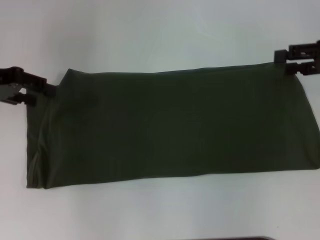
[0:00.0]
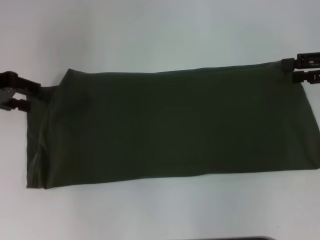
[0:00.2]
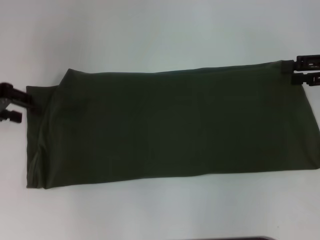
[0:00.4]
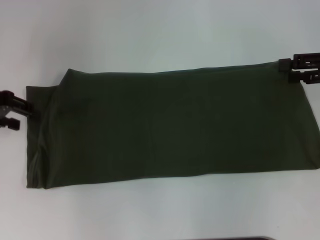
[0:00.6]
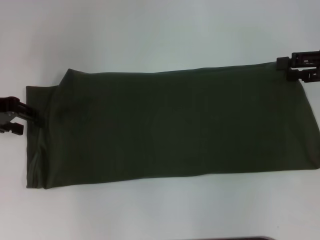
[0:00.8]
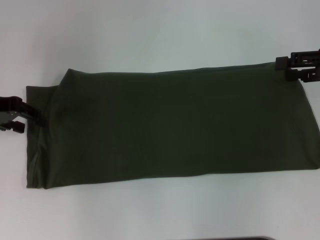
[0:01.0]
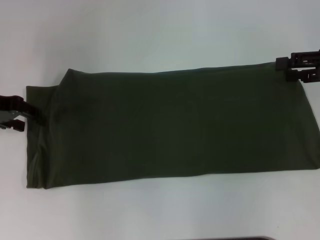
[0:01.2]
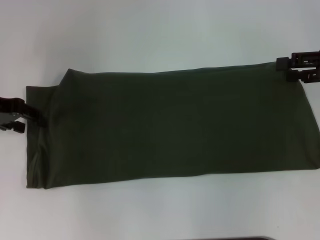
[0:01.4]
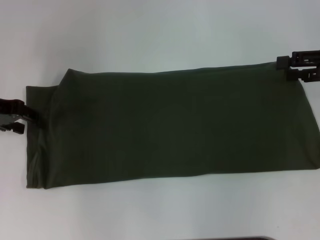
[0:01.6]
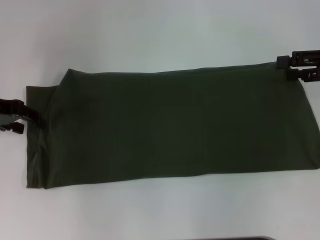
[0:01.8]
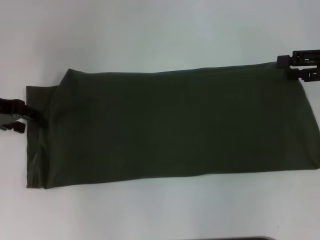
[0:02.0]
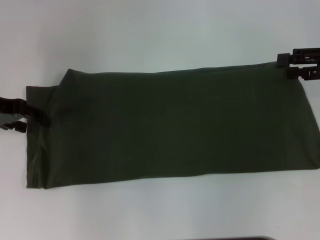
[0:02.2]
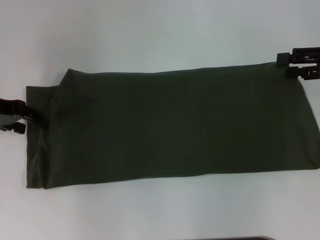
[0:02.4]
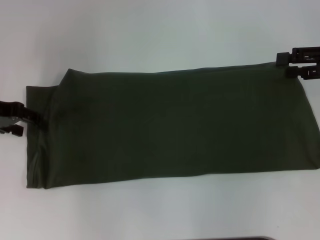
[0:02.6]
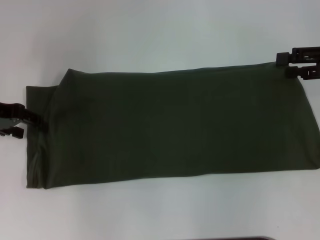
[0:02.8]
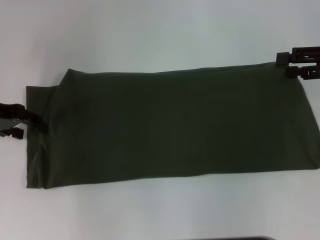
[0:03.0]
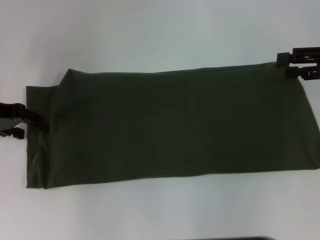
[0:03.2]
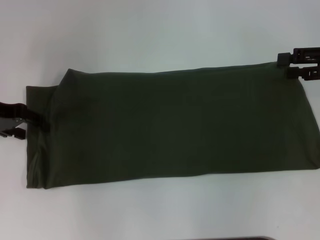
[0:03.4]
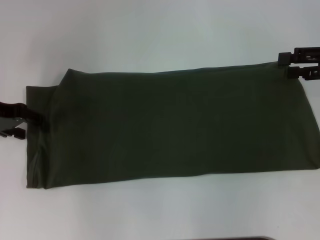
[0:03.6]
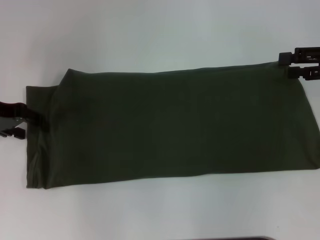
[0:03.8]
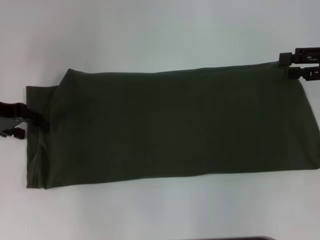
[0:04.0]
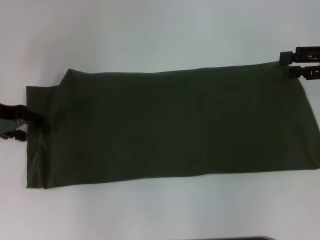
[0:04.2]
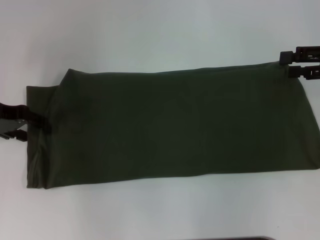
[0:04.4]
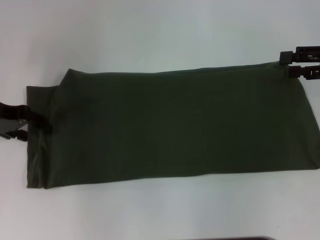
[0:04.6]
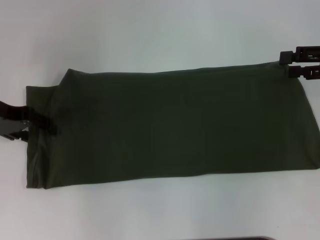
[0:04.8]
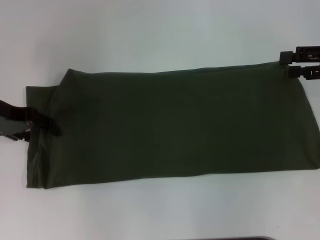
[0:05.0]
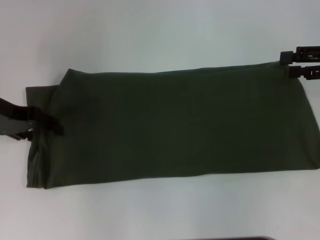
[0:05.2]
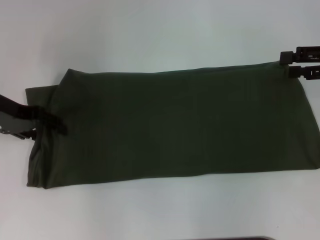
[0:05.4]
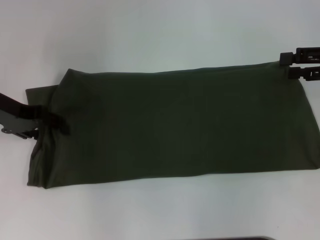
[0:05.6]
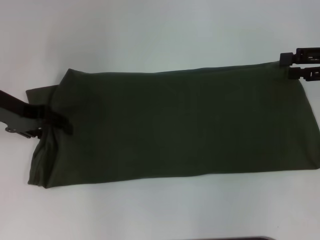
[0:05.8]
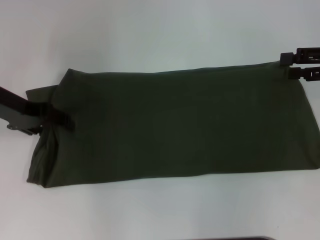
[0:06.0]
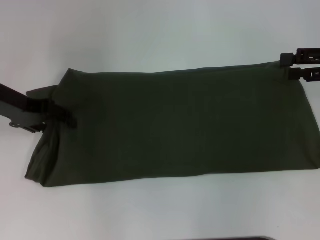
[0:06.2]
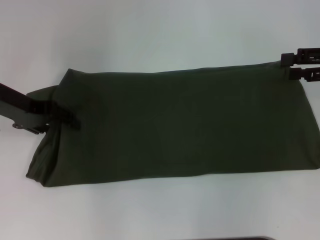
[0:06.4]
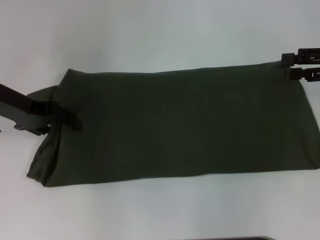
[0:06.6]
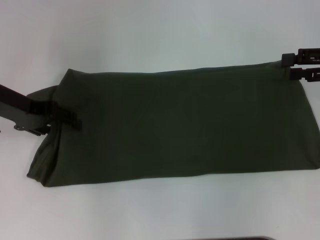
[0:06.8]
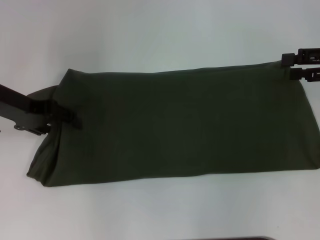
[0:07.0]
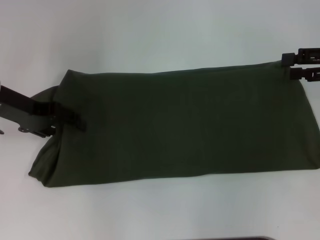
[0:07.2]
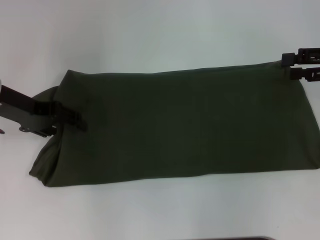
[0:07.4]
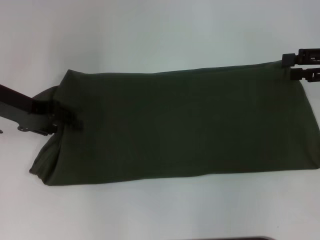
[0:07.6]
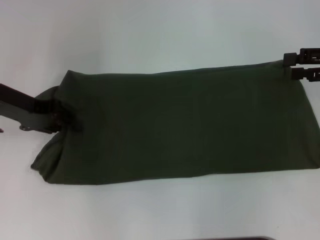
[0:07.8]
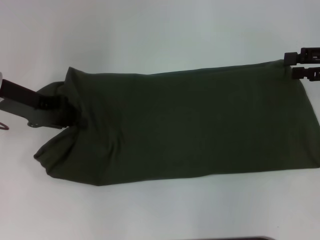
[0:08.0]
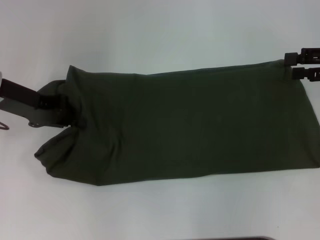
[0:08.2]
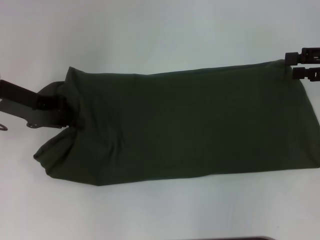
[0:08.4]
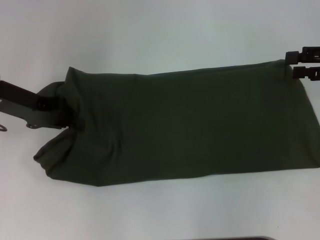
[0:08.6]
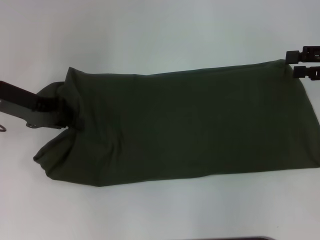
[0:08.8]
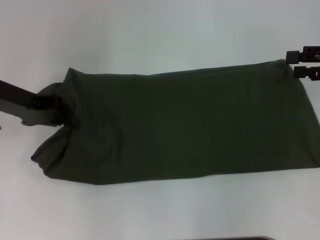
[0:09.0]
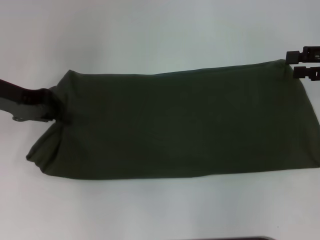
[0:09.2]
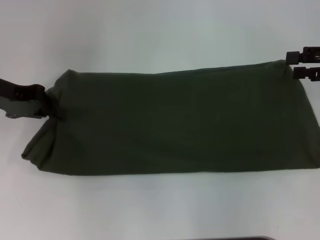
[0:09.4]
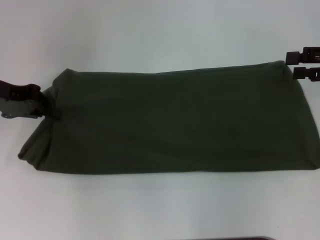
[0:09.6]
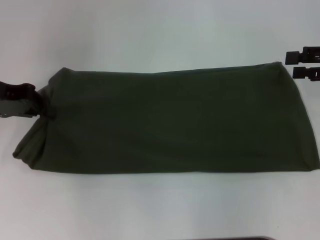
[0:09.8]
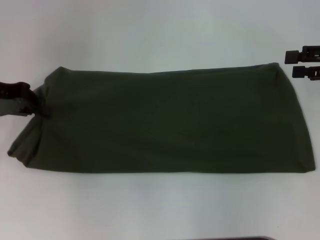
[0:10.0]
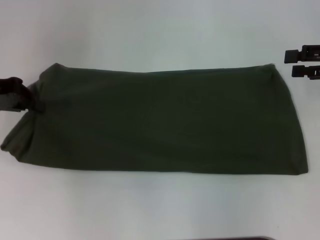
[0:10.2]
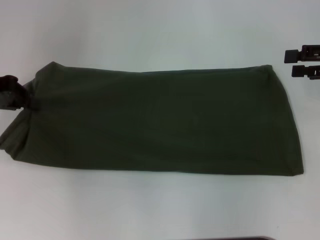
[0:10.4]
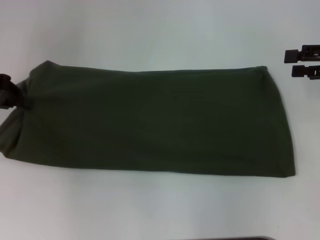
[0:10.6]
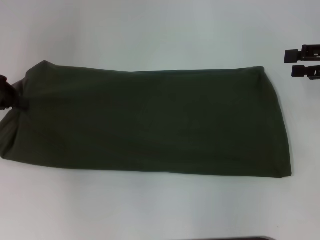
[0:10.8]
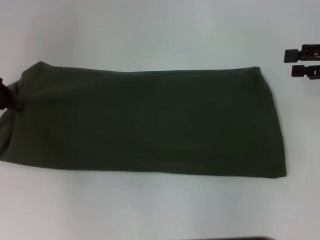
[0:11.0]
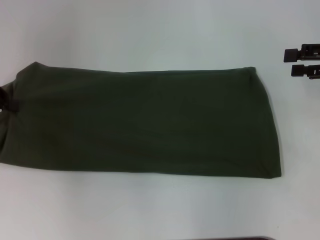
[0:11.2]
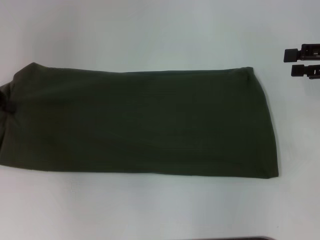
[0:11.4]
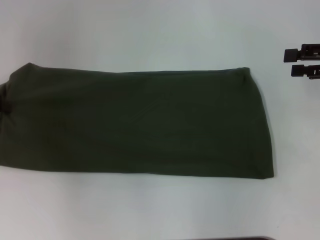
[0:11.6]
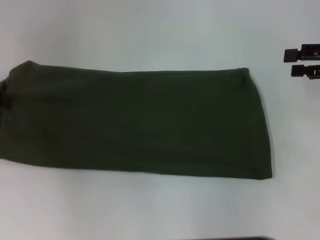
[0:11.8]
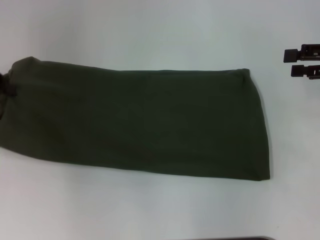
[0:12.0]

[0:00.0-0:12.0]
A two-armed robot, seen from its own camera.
0:00.0 to 0:01.6: There are only small adjustments of the grippers.
0:01.6 to 0:04.4: Both grippers stay about where they are.
0:04.4 to 0:07.6: There are only small adjustments of the grippers.
0:07.6 to 0:09.0: The left gripper closes its fingers.
0:09.0 to 0:10.4: The left gripper is displaced to the left by some 5 cm.
0:10.4 to 0:12.0: The grippers stay close to where they were, moving slightly.

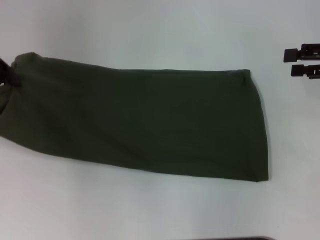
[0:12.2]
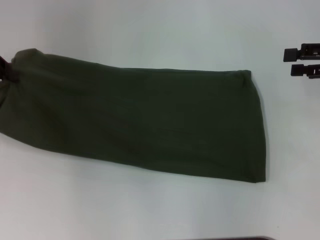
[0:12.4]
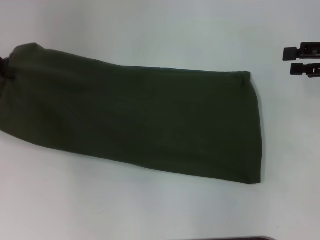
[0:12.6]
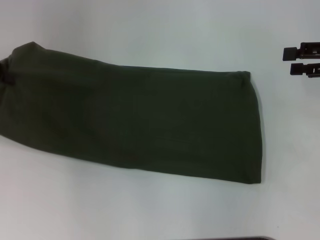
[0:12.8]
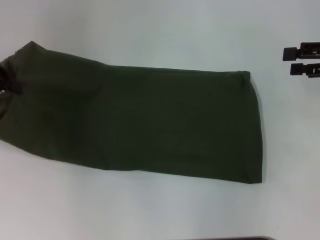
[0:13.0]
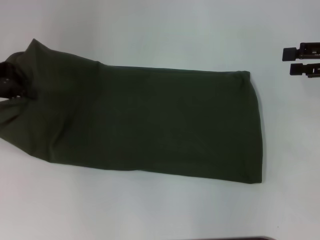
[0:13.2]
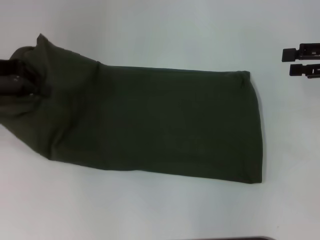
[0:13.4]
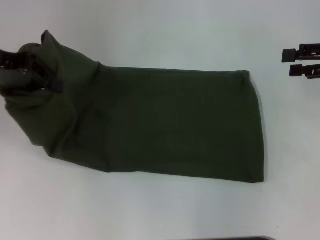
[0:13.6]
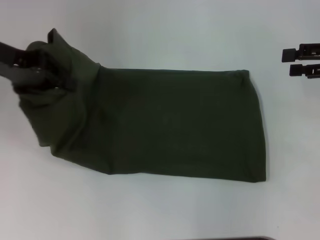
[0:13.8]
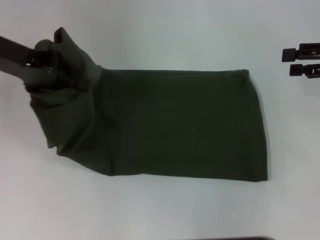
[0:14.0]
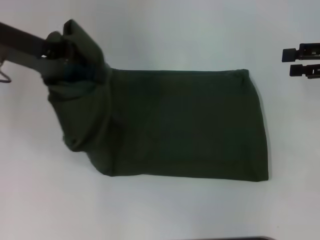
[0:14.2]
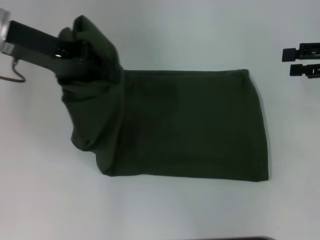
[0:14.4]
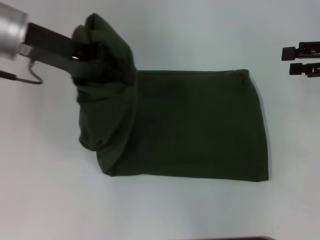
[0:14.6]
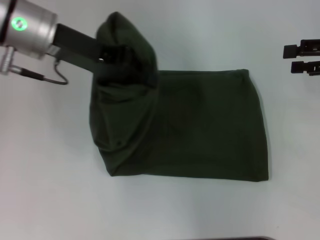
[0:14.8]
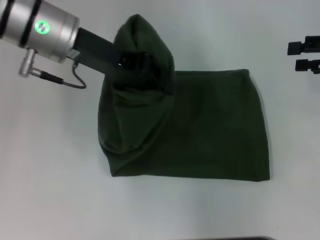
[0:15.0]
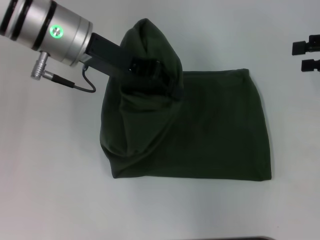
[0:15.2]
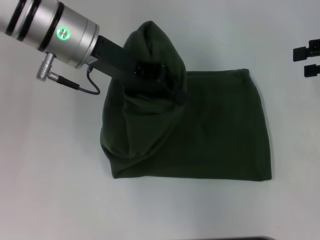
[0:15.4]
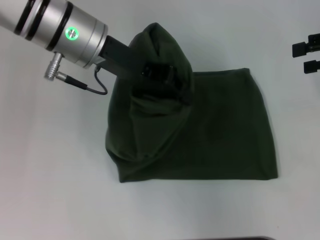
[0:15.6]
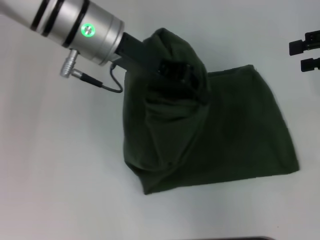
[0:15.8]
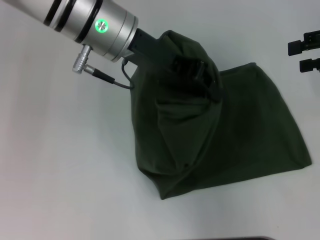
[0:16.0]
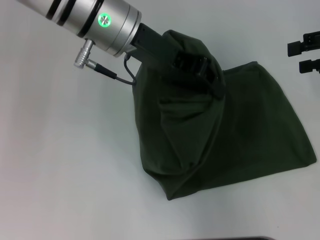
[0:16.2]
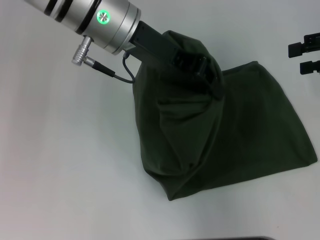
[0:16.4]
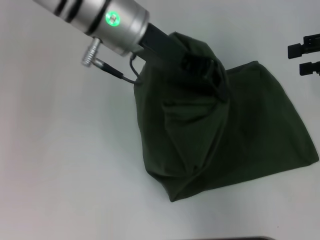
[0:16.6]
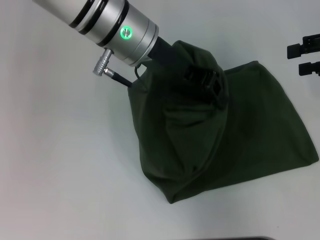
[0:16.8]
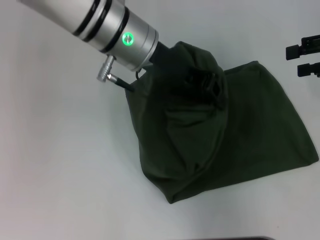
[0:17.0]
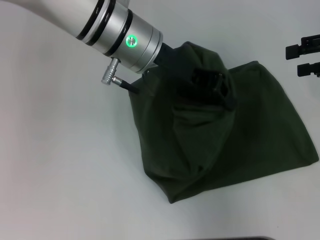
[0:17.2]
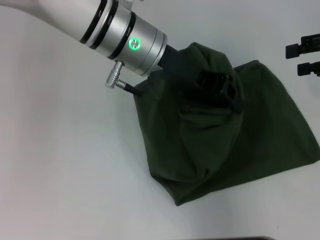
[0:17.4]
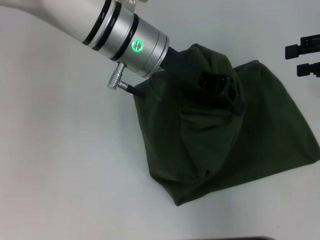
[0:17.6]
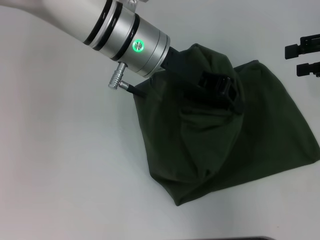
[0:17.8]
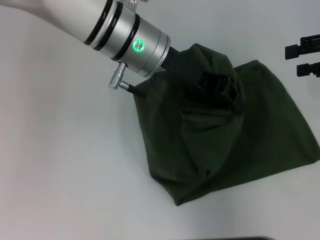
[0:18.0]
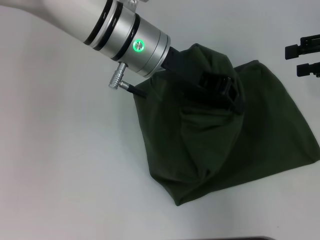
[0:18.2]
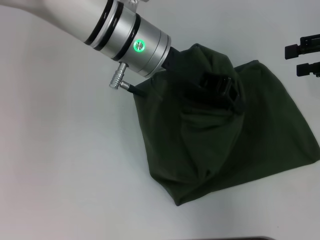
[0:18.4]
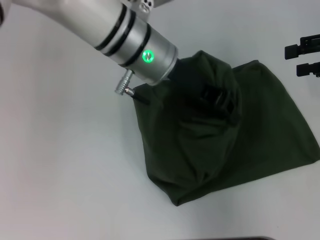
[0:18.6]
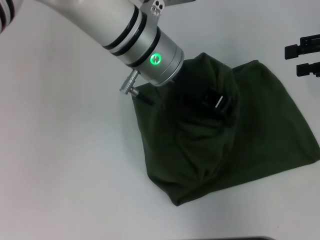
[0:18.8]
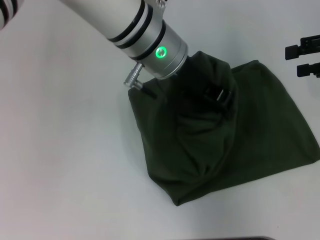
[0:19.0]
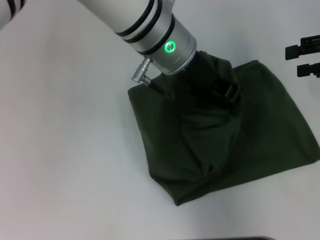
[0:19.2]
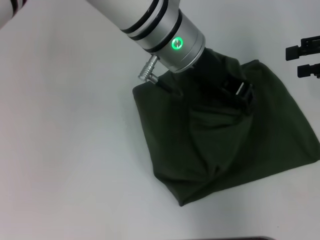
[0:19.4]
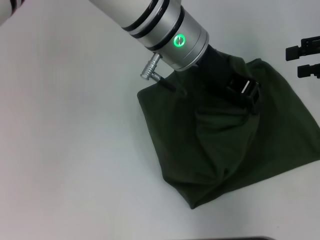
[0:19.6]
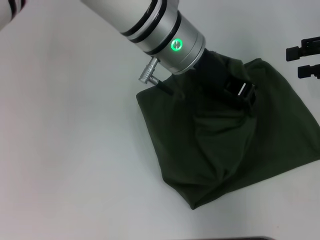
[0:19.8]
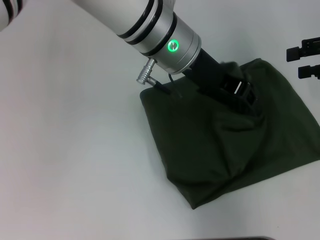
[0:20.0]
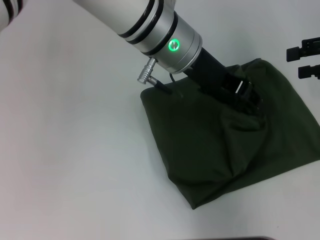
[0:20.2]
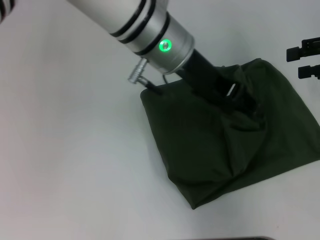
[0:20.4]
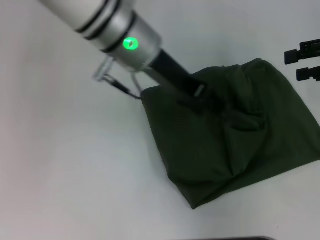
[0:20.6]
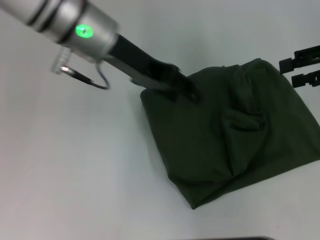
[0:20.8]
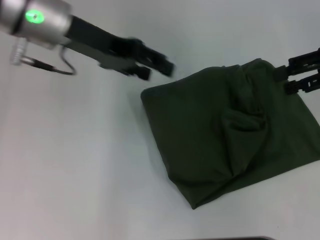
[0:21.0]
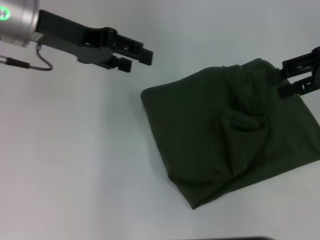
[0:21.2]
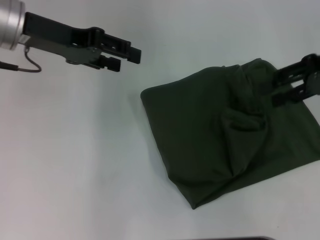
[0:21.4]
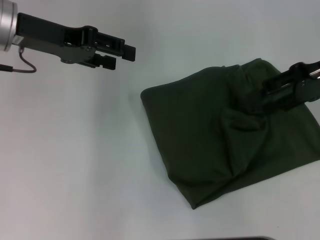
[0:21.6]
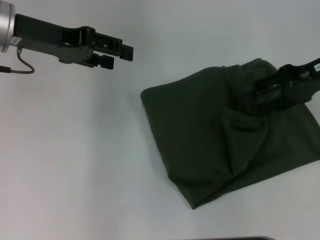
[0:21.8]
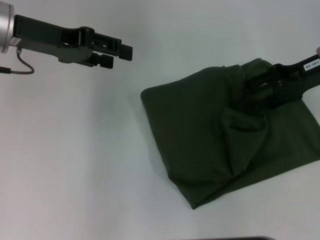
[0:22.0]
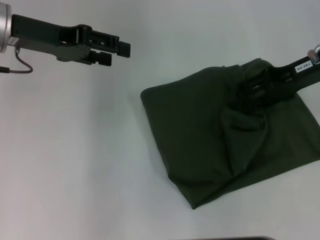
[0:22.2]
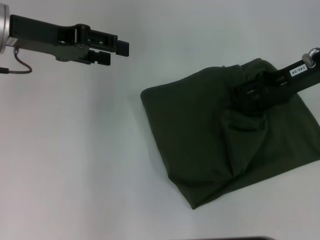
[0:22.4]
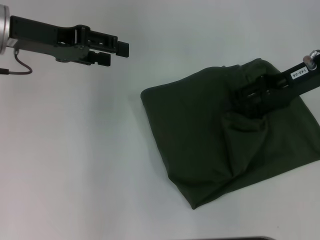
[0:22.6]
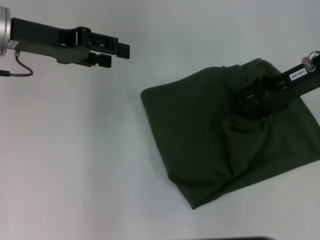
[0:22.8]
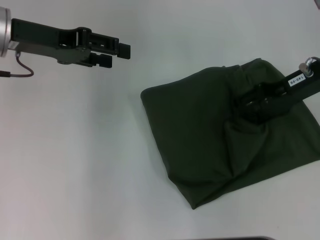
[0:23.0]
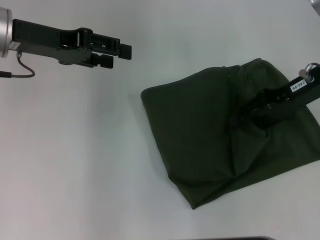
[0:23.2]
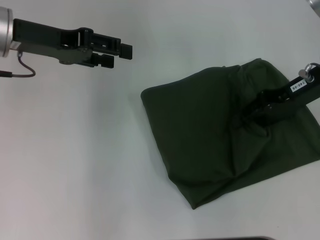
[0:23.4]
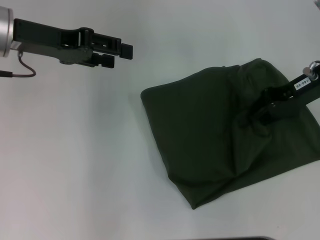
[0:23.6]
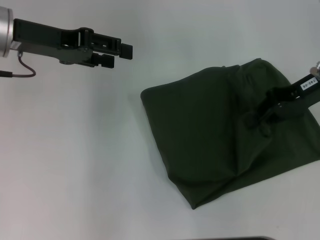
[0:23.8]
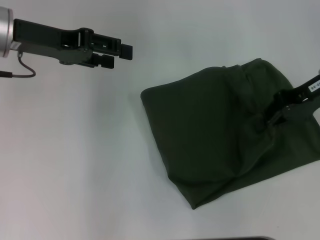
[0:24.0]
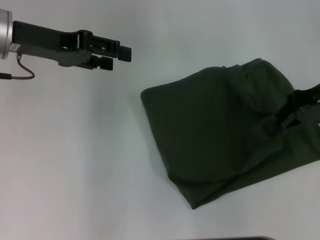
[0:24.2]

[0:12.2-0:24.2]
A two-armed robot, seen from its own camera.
Step, 0:12.2 to 0:20.2: Fold the clothes with your left hand.
0:12.2 to 0:13.8: The left gripper goes about 5 cm to the right.
0:13.8 to 0:15.2: The left gripper moves to the right, approximately 15 cm.
0:15.2 to 0:16.6: The left gripper travels to the right by roughly 5 cm.
0:16.6 to 0:18.2: The grippers move only a little.
0:18.2 to 0:19.8: The grippers move only a little.
0:19.8 to 0:21.2: The left gripper heads to the left, covering approximately 20 cm, and opens its fingers.
0:21.2 to 0:22.6: The right gripper travels to the left by about 5 cm.
0:22.6 to 0:24.2: The right gripper closes up.
